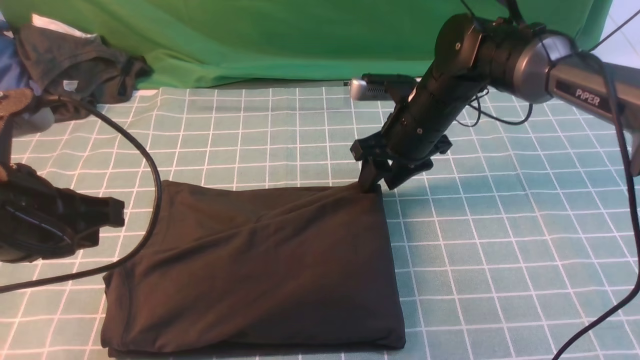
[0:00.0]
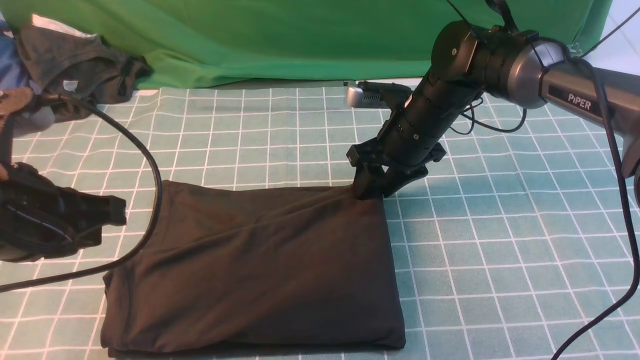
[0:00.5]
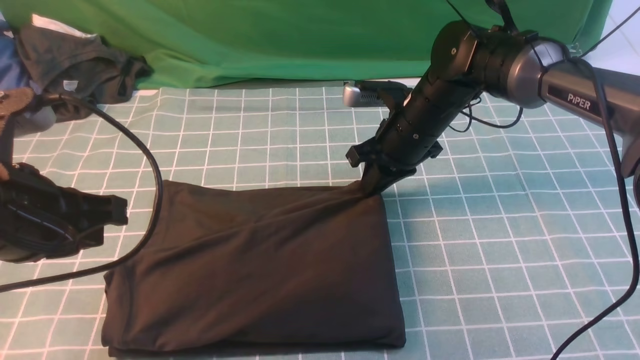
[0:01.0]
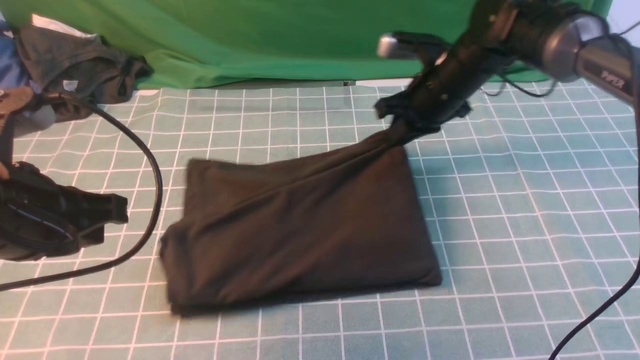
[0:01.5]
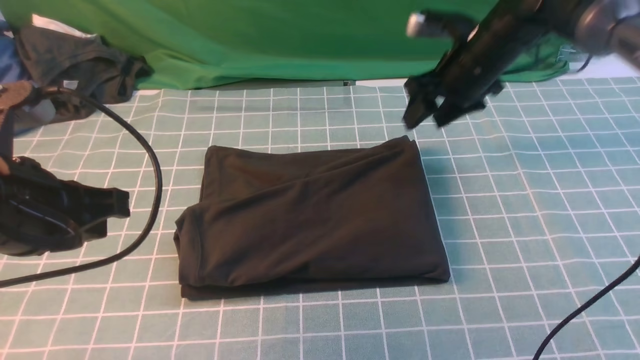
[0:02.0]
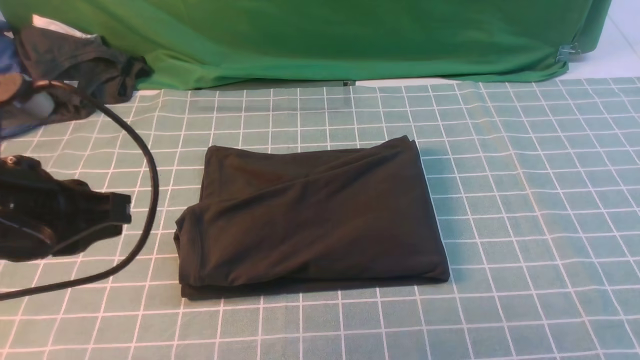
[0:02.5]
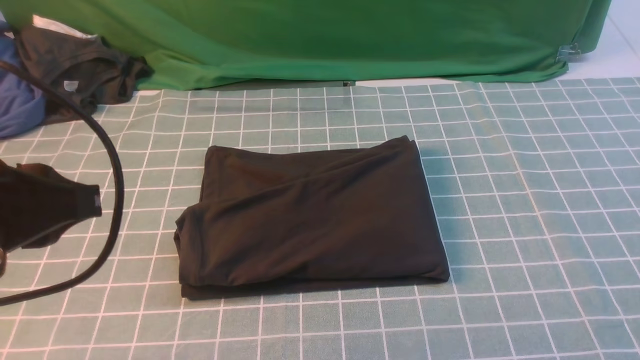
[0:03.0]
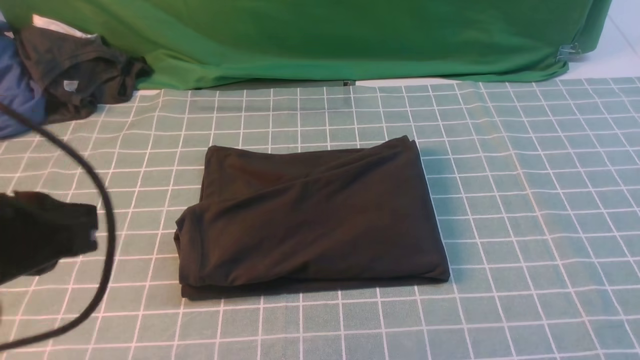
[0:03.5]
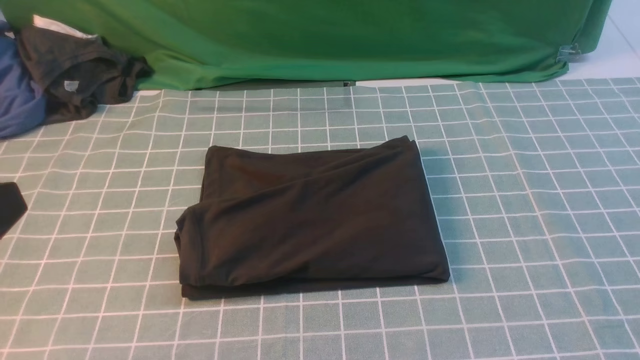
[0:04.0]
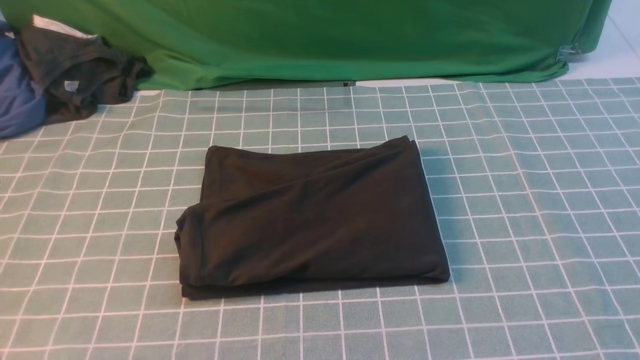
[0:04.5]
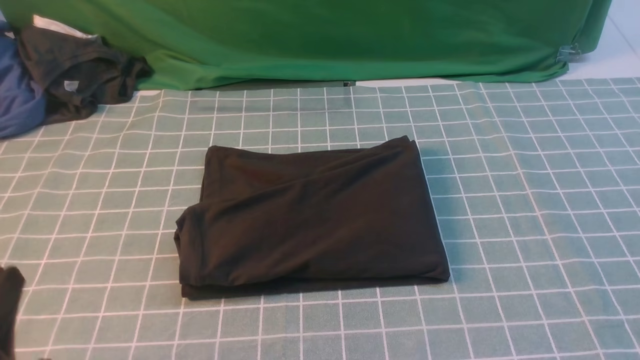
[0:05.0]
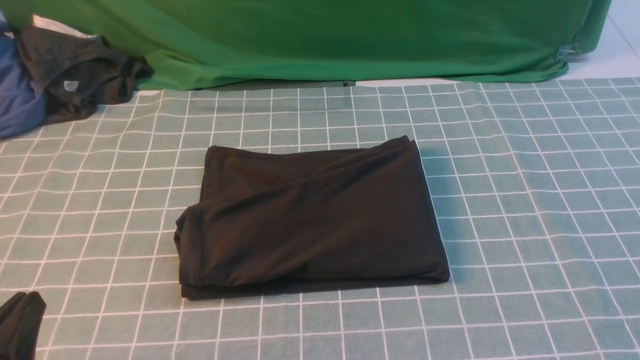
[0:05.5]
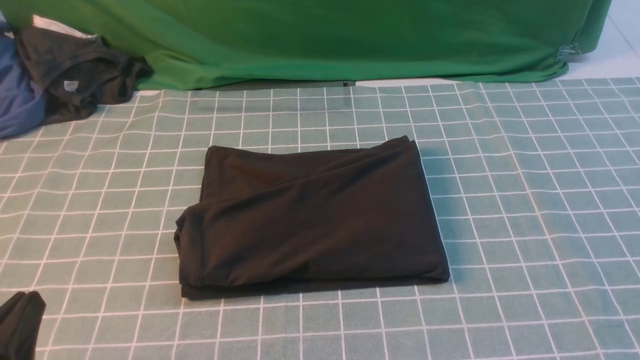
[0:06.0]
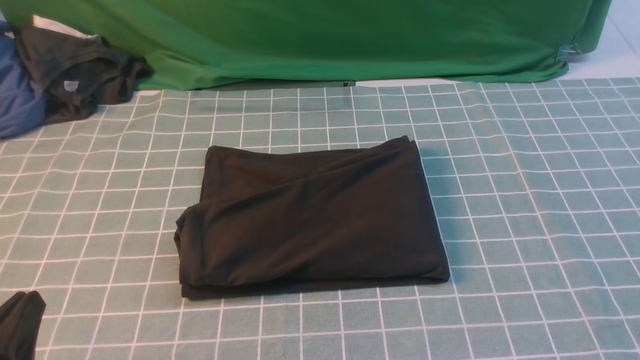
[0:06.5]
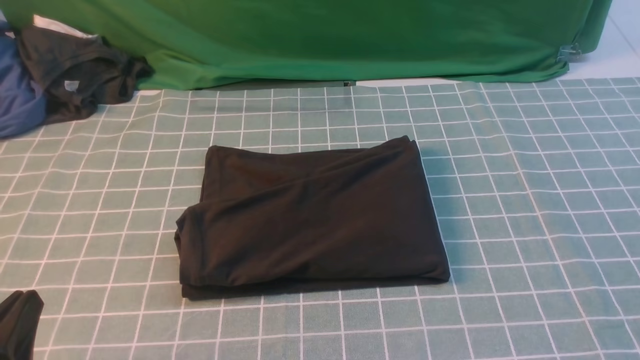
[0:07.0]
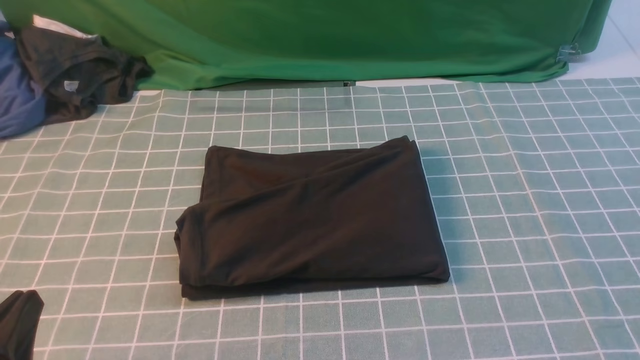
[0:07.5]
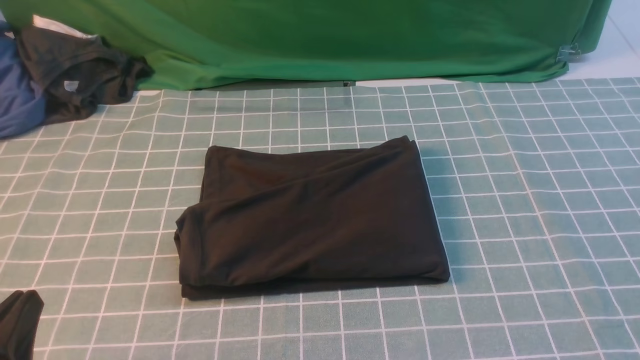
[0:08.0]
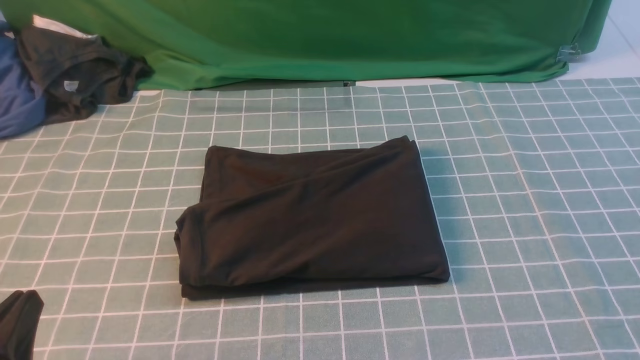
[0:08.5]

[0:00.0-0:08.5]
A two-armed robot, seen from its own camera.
0:00.0 to 0:02.0: The right gripper moves upward and to the right, about 10 cm, and closes, then reopens.
0:02.0 to 0:04.0: The right gripper is displaced backward by approximately 40 cm, while the left gripper is displaced backward by approximately 10 cm.
0:04.0 to 0:06.5: The left gripper moves downward, some 15 cm.

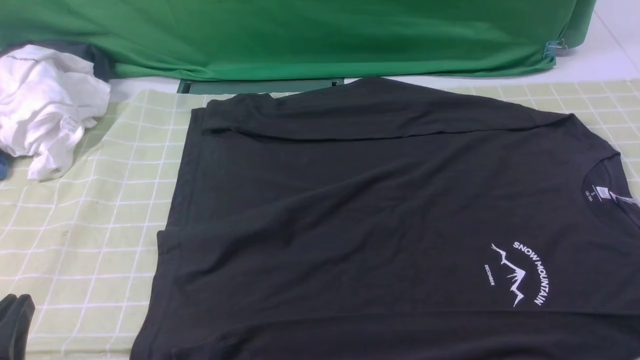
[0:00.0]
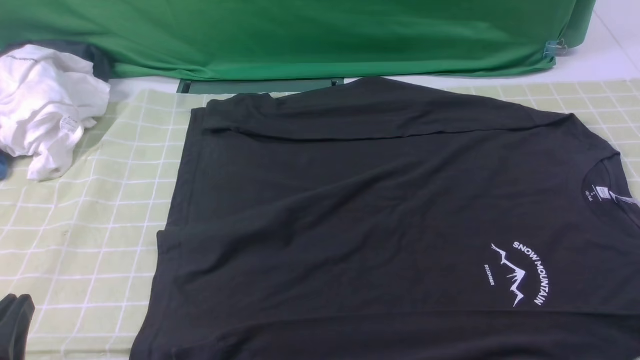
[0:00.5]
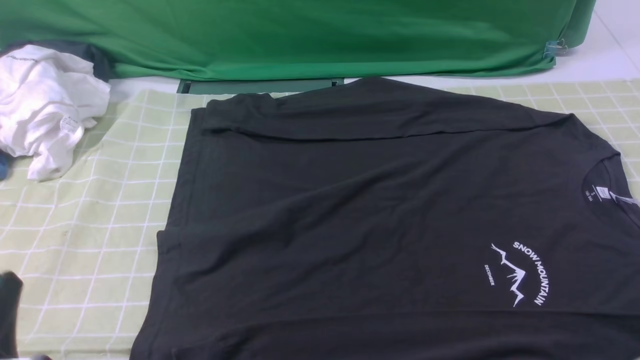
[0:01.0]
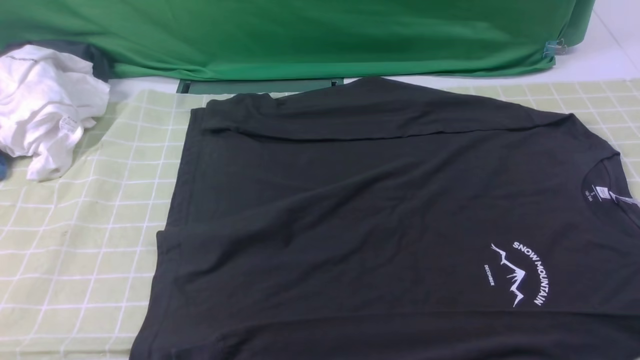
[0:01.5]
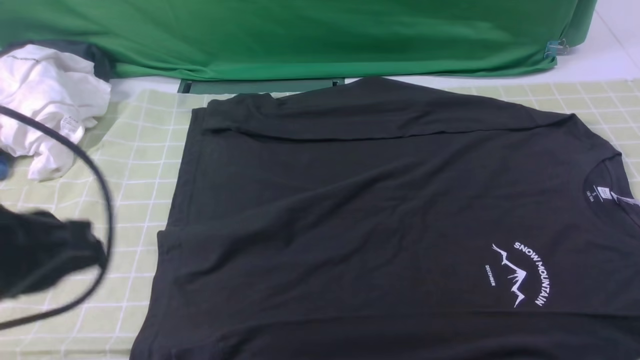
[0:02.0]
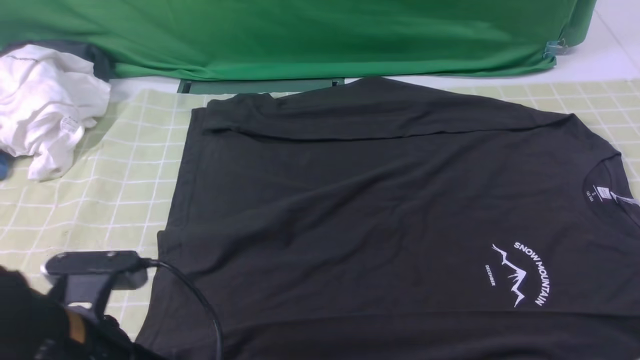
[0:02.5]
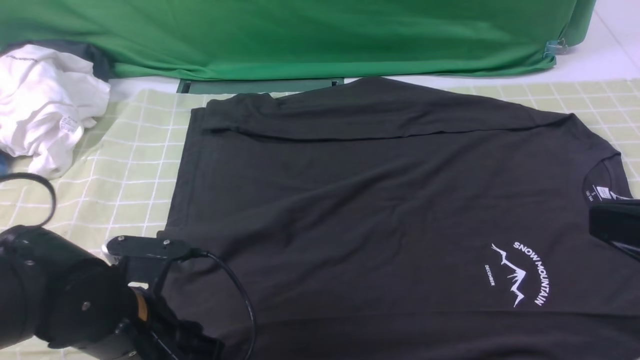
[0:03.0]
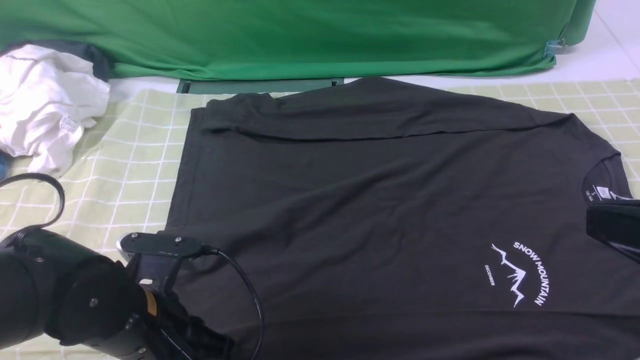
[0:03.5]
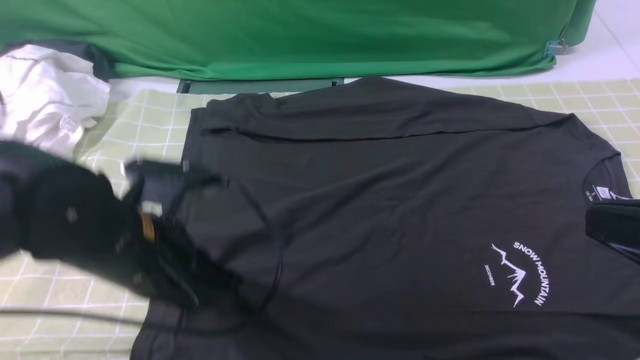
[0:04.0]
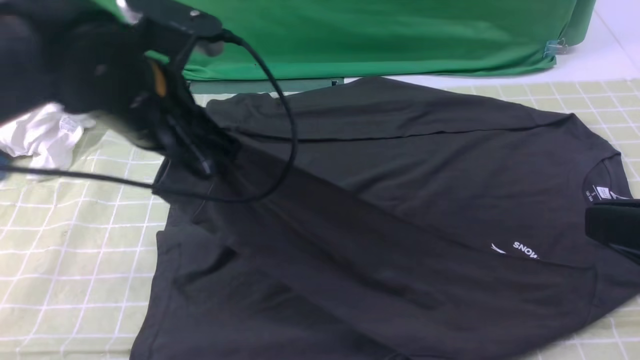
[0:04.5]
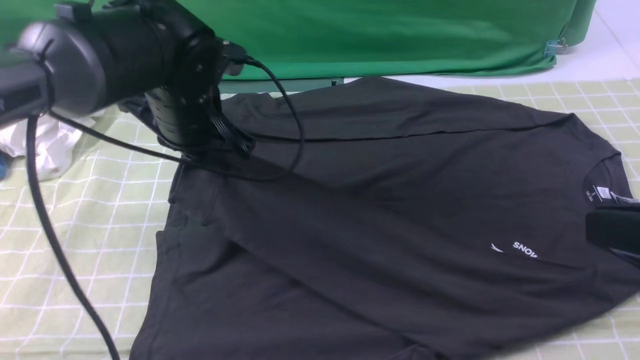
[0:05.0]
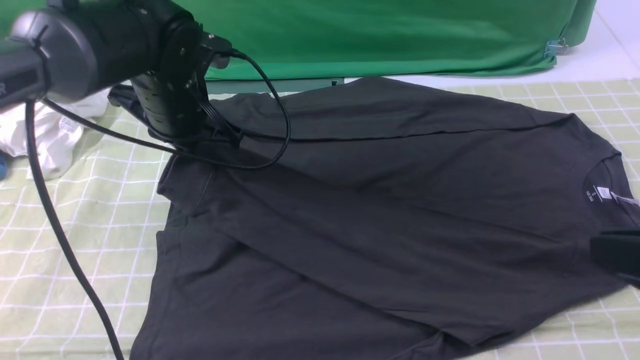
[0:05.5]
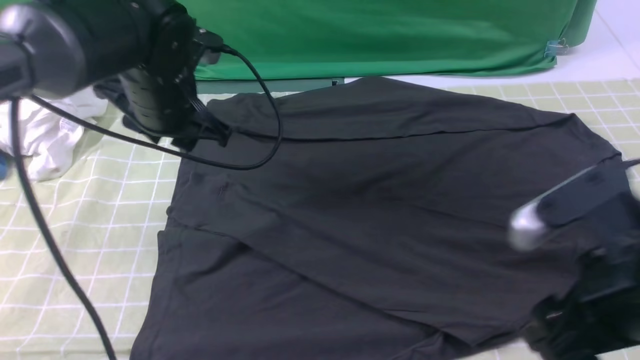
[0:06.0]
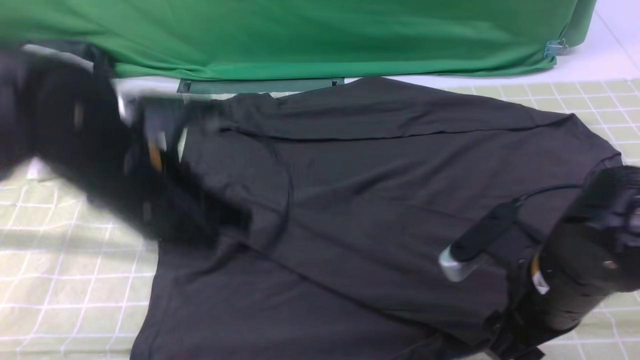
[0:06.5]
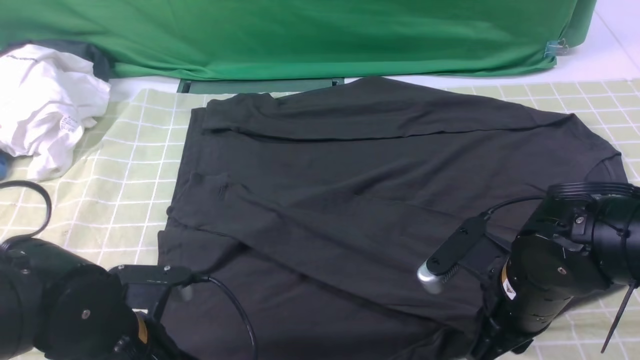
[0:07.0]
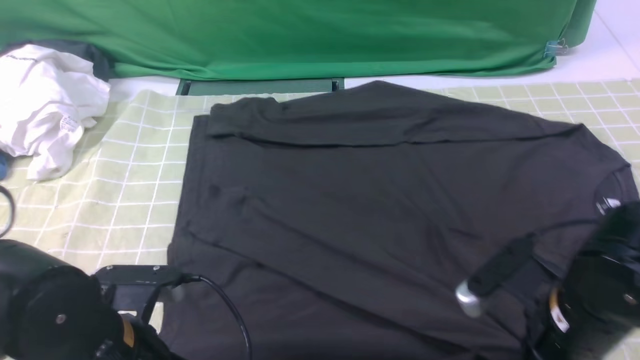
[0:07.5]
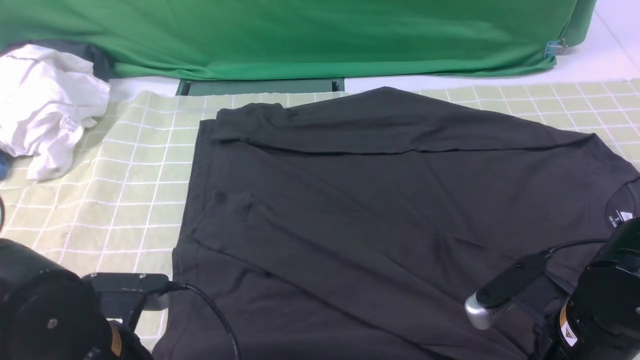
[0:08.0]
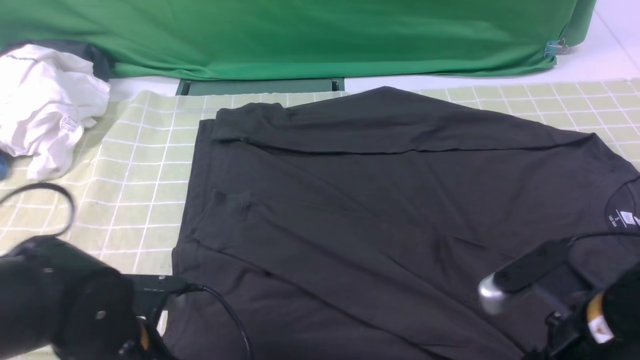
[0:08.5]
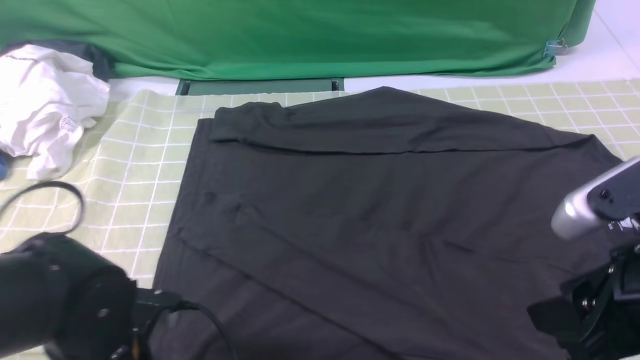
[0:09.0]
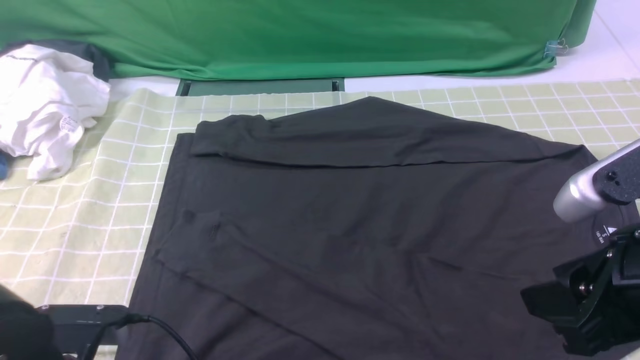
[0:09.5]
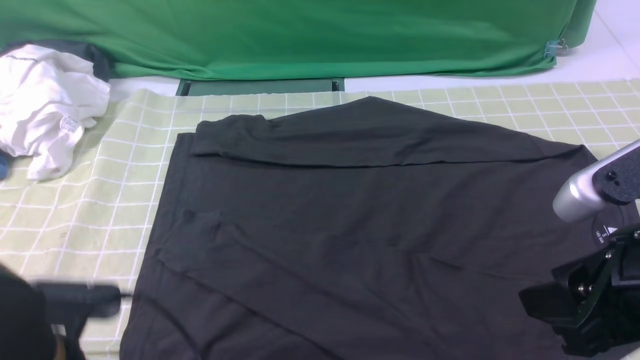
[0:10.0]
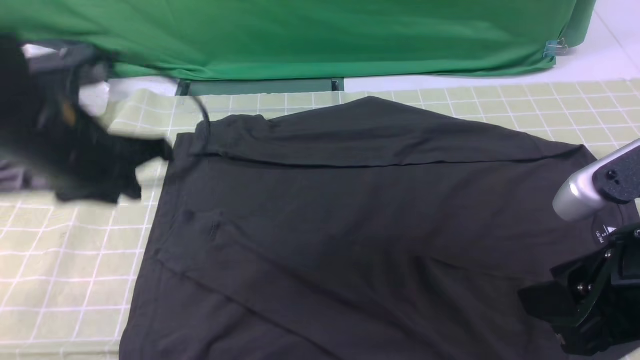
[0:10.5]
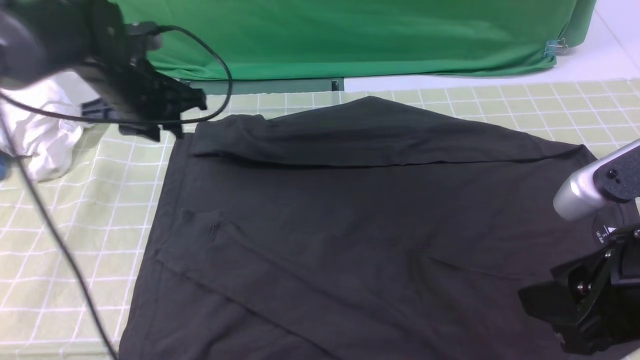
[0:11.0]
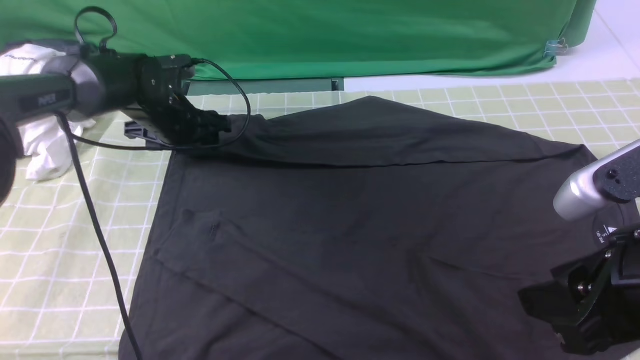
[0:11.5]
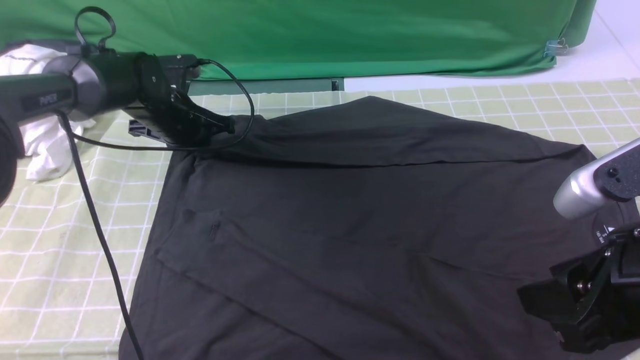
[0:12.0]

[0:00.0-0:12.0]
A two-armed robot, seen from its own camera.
Step, 0:00.0 to 0:03.5: use the left arm to clamp the cuff closest to it.
Step, 0:04.0 to 0:05.5: use the left arm to drag and place the cuff at the centered position on the left edge of the fabric.
0:00.0 to 0:02.0: The left gripper moves upward and forward, about 15 cm.
0:02.0 to 0:04.0: The left gripper shifts roughly 15 cm forward, to the right and downward, and opens, then closes again. Meanwhile the right gripper goes some 15 cm to the left, upward and forward.
0:04.0 to 0:06.0: The right gripper moves downward and forward, roughly 10 cm, and opens up; the left gripper heads forward, covering about 15 cm, and opens.
0:06.0 to 0:08.0: The right gripper travels downward by roughly 10 cm, and closes its fingers. Meanwhile the left gripper moves backward, approximately 20 cm, and closes and opens again.
0:08.0 to 0:10.0: The right gripper shifts approximately 15 cm upward, and opens up, while the left gripper closes, then reopens.
0:10.0 to 0:12.0: The left gripper goes about 35 cm forward, and closes.
